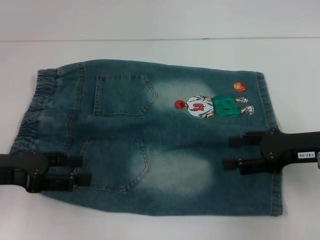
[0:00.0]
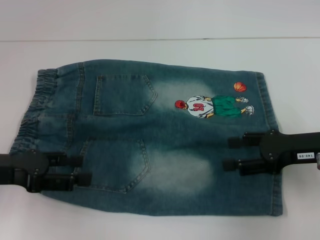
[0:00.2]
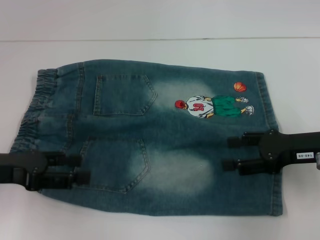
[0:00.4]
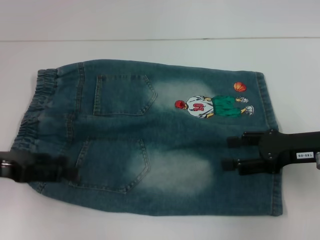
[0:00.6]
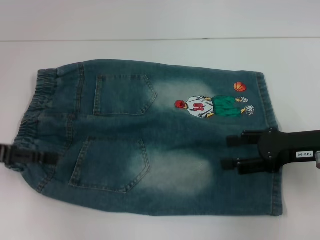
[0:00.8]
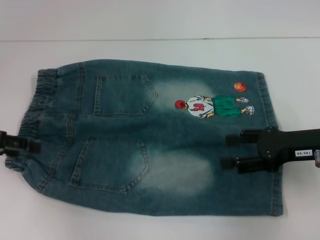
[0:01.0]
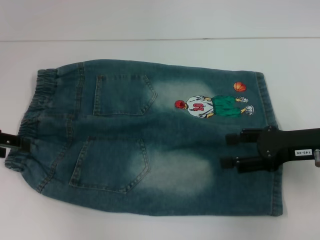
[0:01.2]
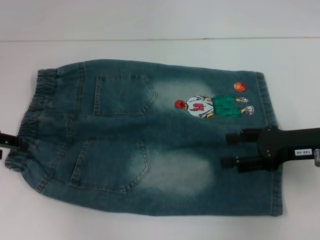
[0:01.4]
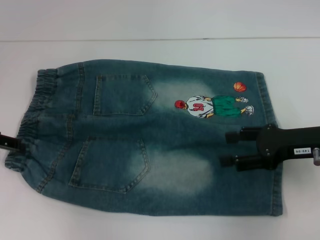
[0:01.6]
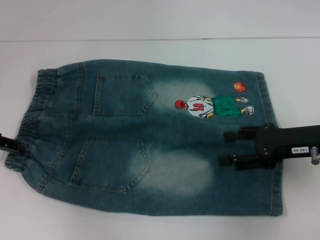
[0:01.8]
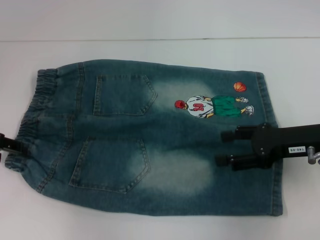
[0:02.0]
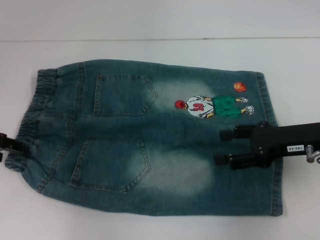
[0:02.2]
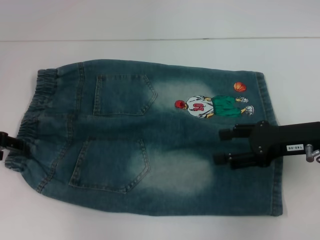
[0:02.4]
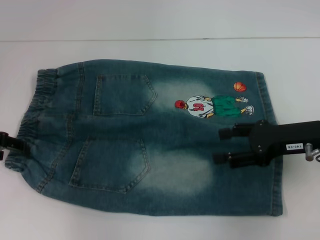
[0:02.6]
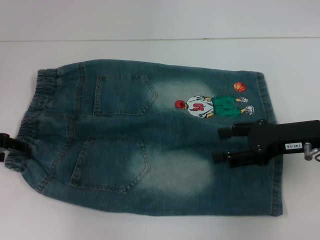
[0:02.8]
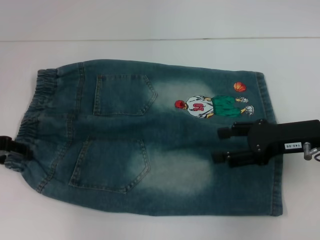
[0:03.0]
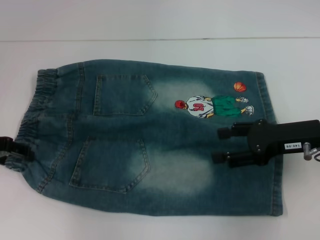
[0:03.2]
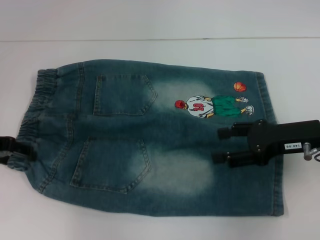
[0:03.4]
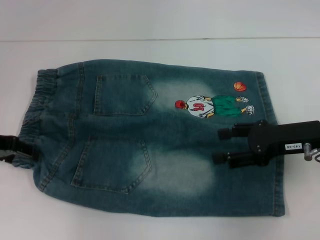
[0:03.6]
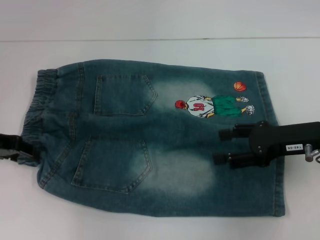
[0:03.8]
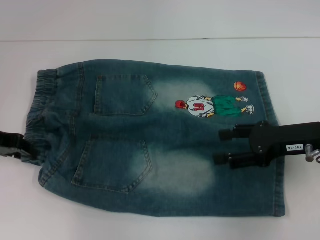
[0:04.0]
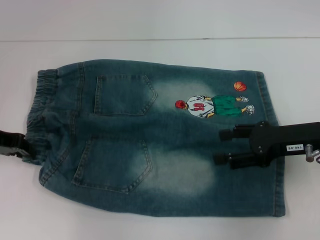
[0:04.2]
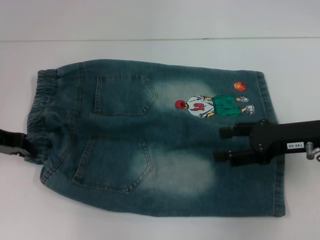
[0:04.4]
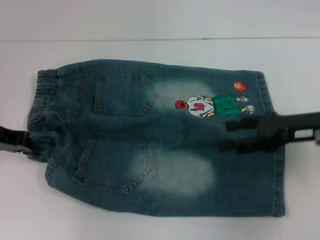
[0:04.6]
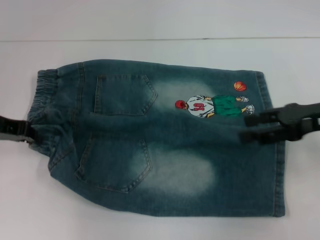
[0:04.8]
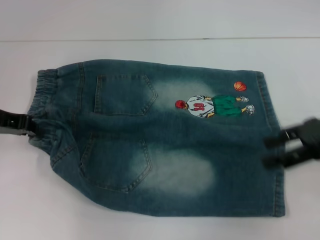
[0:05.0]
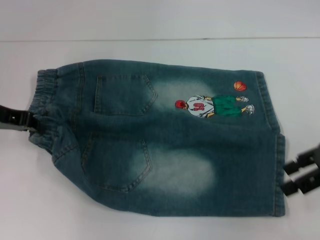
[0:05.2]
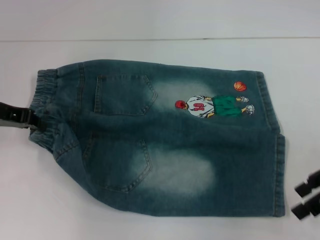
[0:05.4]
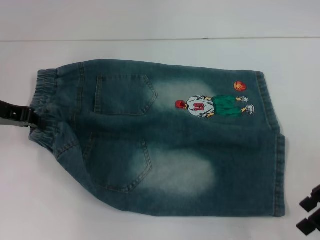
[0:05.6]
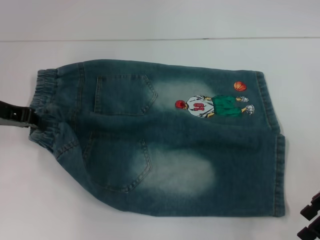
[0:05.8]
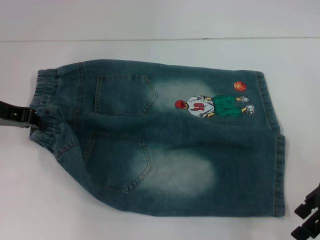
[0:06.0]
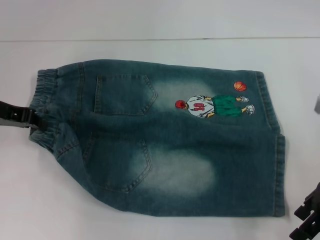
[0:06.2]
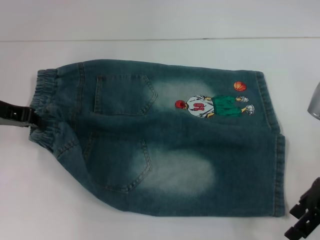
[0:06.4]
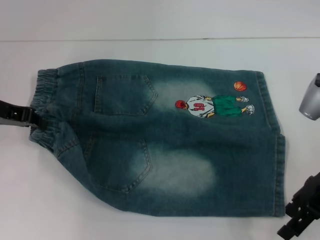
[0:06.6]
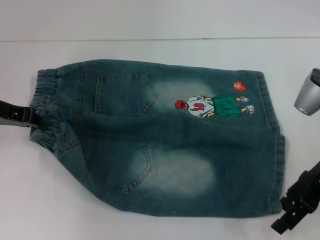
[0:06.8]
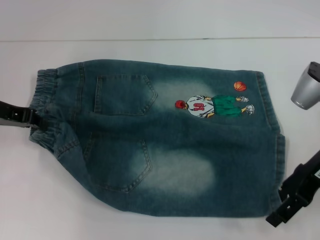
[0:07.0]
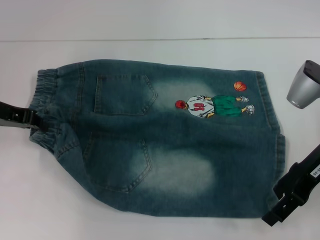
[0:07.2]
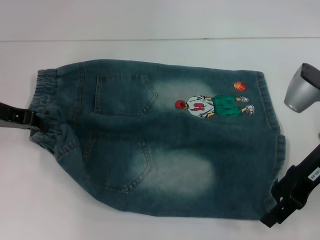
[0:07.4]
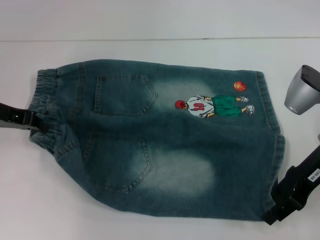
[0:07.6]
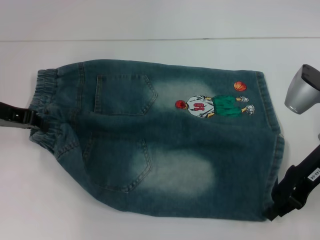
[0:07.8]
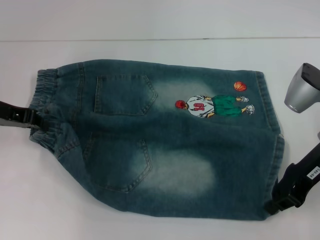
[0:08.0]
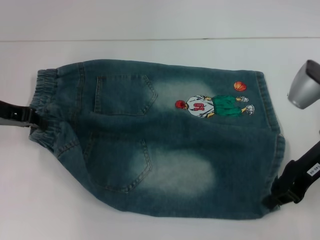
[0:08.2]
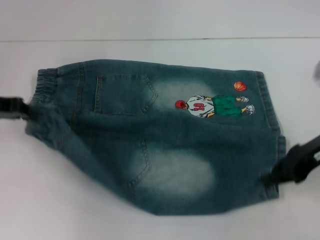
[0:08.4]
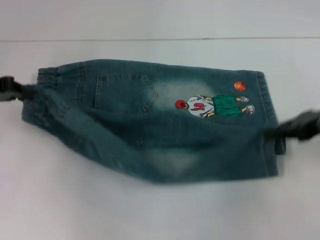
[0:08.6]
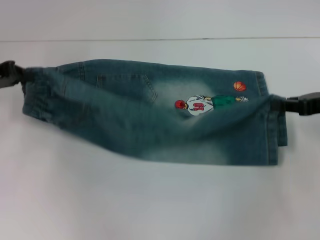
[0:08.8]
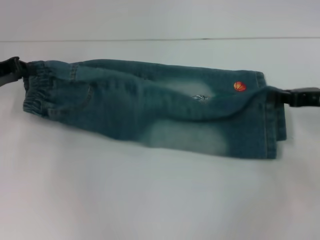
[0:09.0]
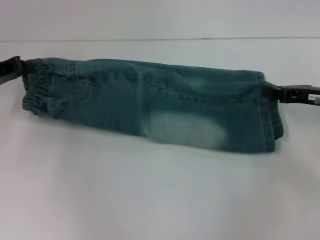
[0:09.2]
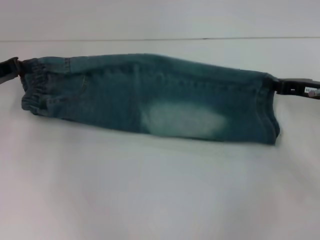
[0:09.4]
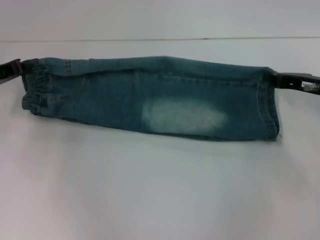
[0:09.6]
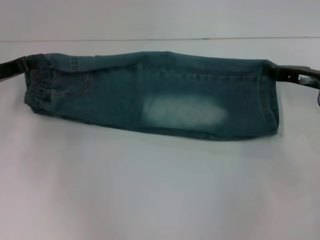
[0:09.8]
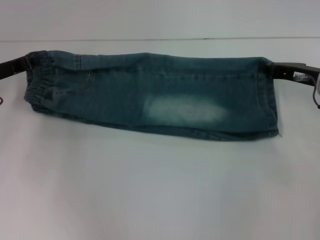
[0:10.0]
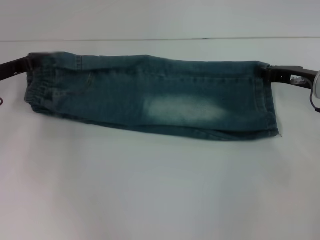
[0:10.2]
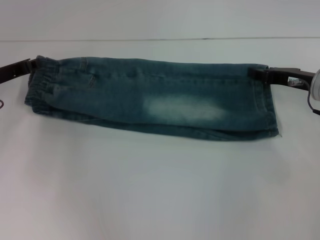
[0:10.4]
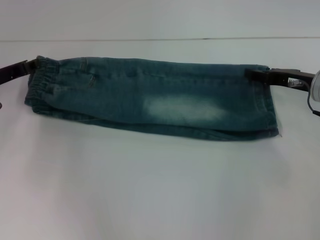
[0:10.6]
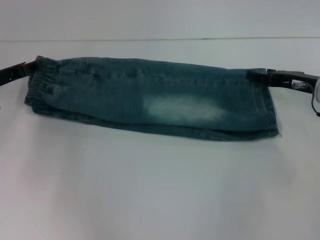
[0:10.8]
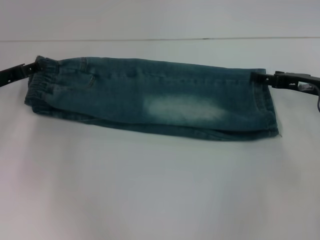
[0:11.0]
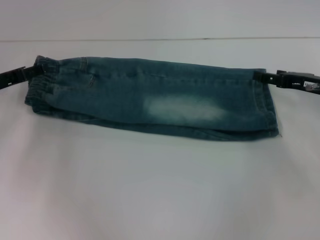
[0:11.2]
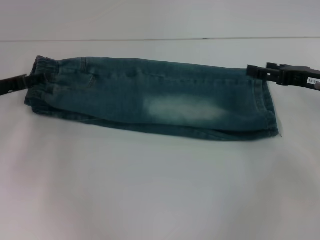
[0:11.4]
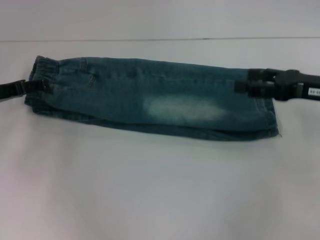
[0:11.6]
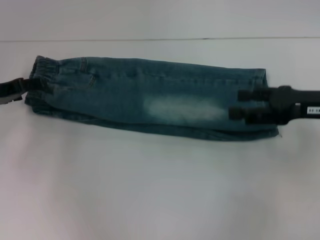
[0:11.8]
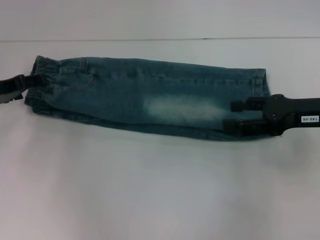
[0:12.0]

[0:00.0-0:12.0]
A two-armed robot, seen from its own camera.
Step, 0.0 to 4.4 s: Hold the lower left waistband with your left hand.
Step, 4.6 to 8.0 s: Grab the lower right pant leg with your right hand.
Step, 8.2 to 10.4 s: Fold upward with your left hand.
0.0 to 1.6 s: The left gripper travels forward by some 5 cm.
1.6 to 3.0 s: There are only small adjustments of the grippers.
3.0 to 4.4 s: The left gripper closes.
6.0 to 7.6 s: The grippers stay close to where they were, moving slightly.
7.6 to 9.0 s: The right gripper shifts approximately 10 cm to the right, and closes its fingers.
9.0 to 10.4 s: The right gripper moves some 5 cm.
10.4 to 12.0 s: The left gripper opens its fingers, while the right gripper goes some 5 cm backward, and opens up.

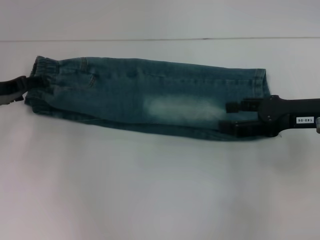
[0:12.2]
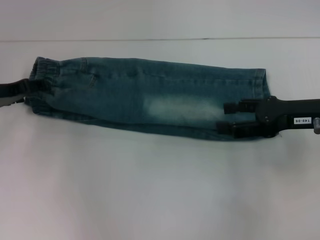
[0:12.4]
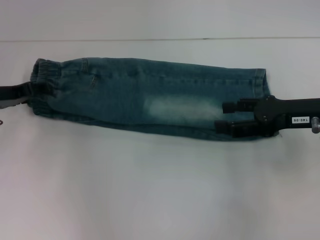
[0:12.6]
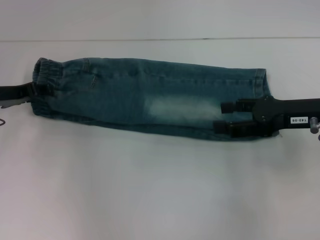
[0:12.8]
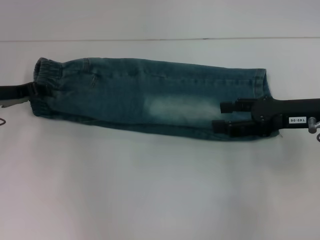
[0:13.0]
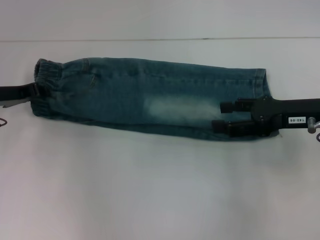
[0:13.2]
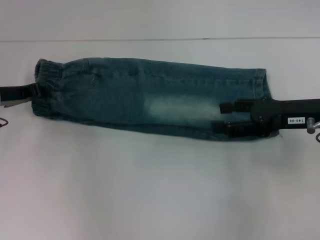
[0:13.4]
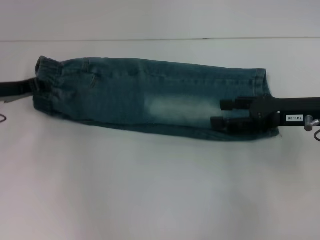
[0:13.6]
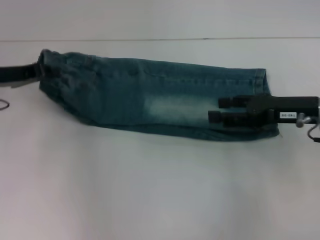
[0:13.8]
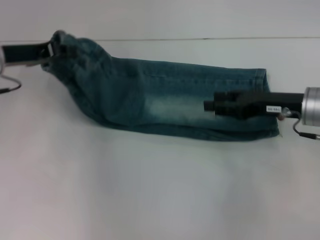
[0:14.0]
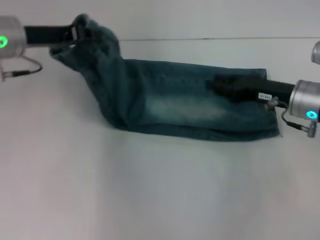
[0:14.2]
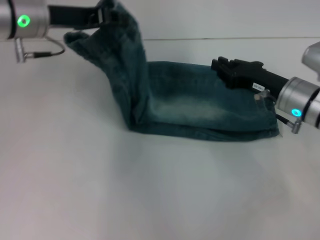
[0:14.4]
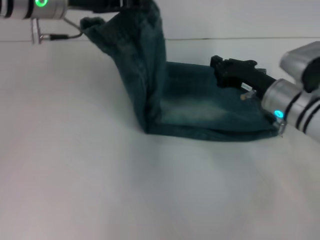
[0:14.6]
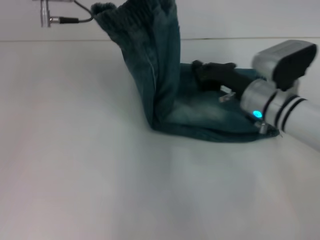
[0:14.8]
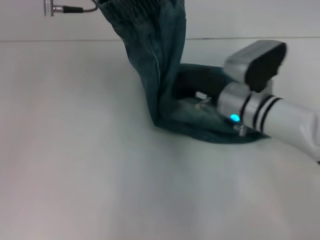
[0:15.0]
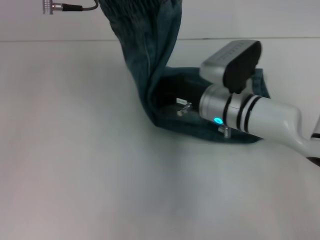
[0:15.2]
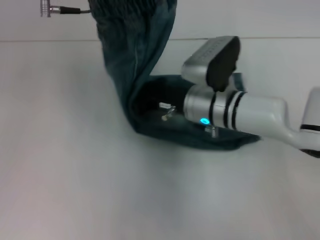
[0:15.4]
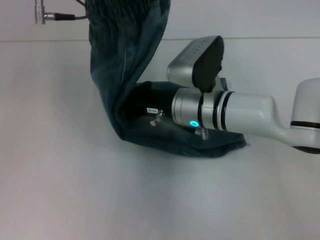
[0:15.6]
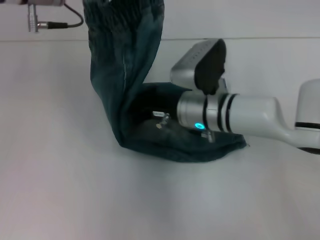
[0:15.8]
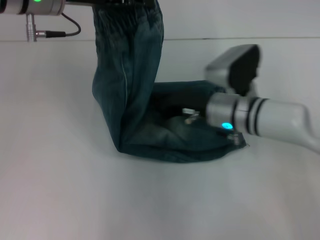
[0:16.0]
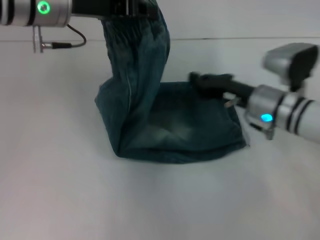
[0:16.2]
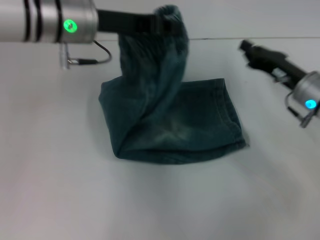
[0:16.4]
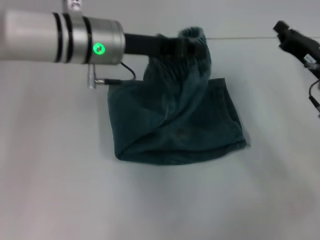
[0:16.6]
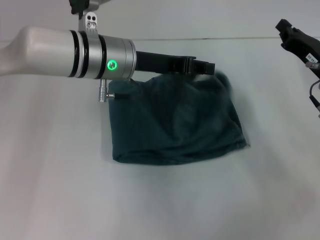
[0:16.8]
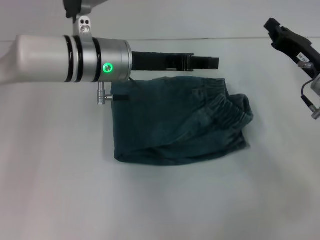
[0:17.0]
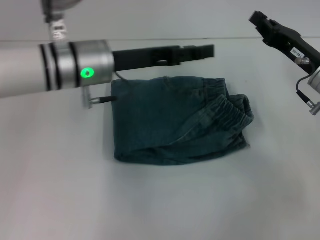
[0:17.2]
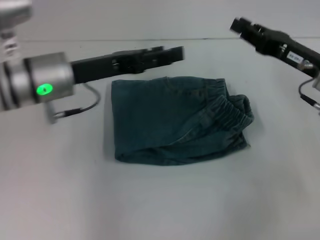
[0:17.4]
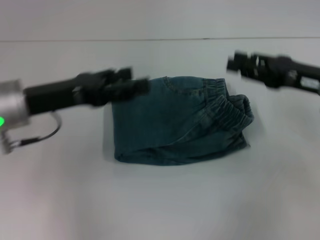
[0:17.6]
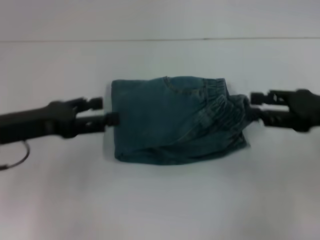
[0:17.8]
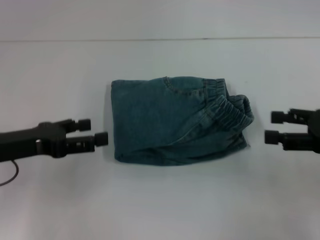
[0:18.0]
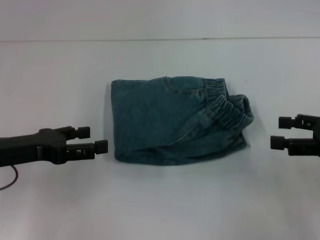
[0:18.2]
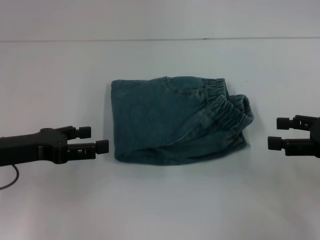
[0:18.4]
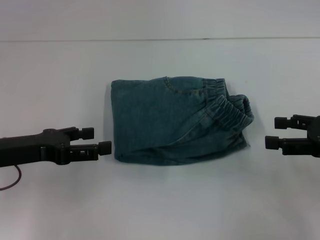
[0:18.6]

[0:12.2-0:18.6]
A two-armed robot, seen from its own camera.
Step, 13.6 to 15.8 s: Press the middle of the pants with your right hand.
Step, 16.0 to 16.8 s: Fold to the right with your left hand.
12.2 to 13.8 s: The left gripper closes.
13.8 to 15.4 s: The right gripper shifts about 20 cm to the left, and closes up. Meanwhile the left gripper travels upward and to the right by some 20 cm.
15.4 to 17.0 s: The left gripper travels downward by approximately 10 cm, while the right gripper travels to the right by about 20 cm.
17.0 to 18.6 s: The left gripper shifts approximately 20 cm to the left and backward, and opens its fingers. Meanwhile the right gripper heads backward and to the right, covering about 10 cm, and opens its fingers.

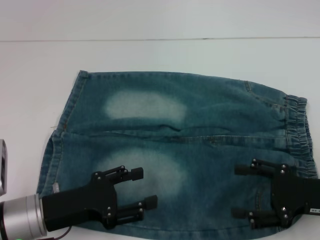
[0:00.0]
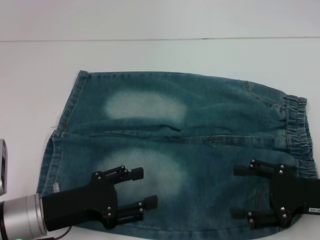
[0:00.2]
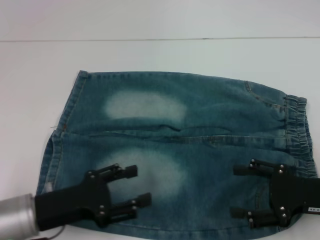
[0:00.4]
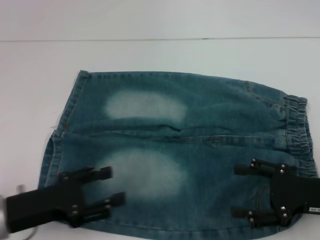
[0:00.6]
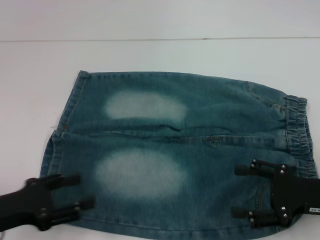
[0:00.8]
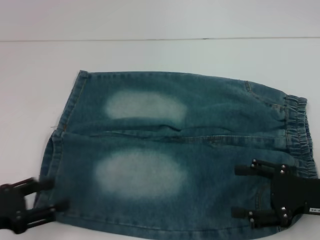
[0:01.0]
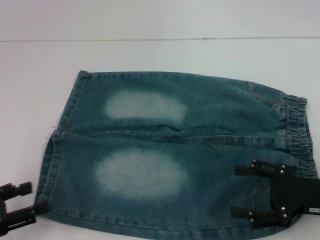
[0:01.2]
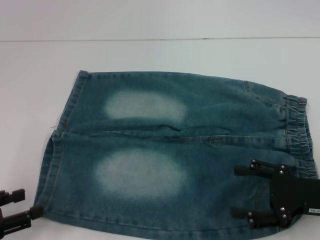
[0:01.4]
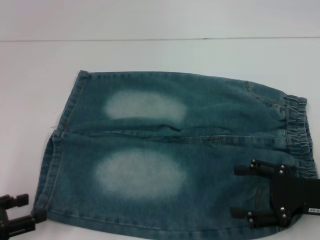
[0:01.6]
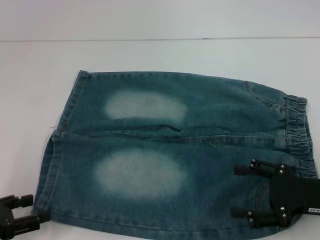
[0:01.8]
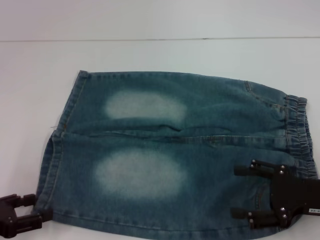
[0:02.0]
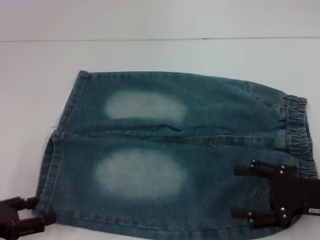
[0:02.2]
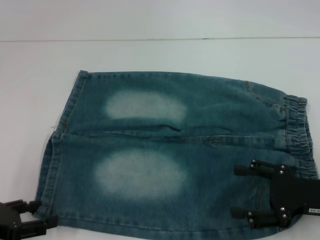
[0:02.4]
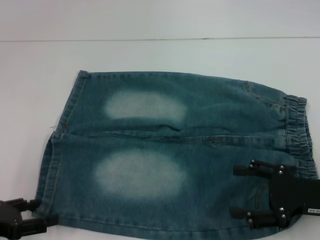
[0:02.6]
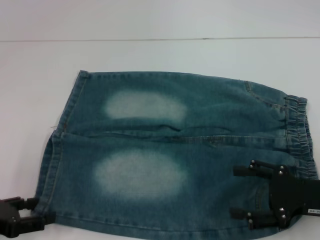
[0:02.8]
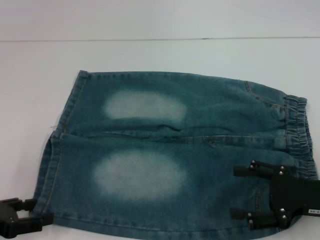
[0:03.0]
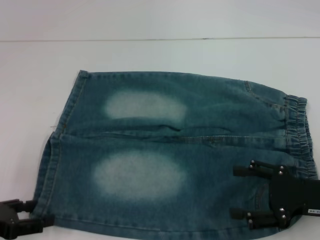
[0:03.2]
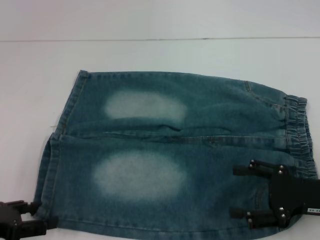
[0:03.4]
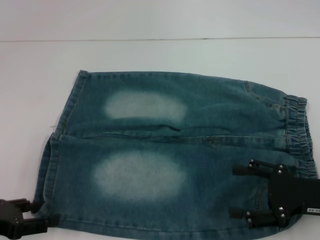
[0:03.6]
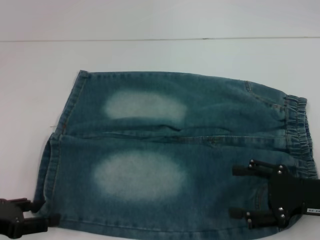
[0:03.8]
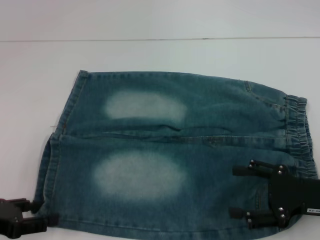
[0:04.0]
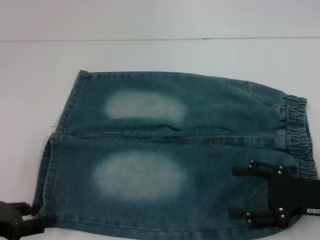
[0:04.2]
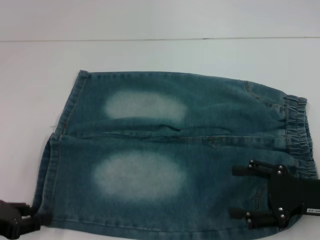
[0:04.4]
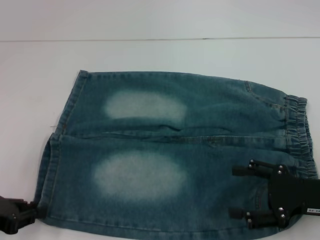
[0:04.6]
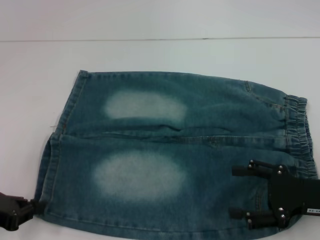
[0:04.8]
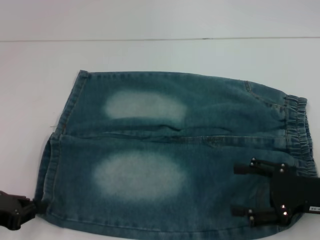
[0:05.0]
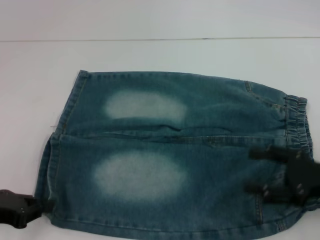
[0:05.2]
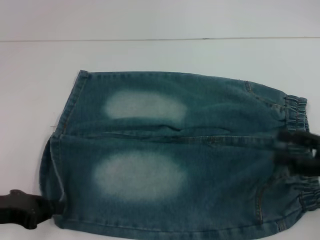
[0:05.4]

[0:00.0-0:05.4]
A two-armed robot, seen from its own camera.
0.0 to 1.4 s: The left gripper is displaced to the left by roughly 15 cm.
1.4 to 2.8 s: The grippers move only a little.
2.8 to 4.0 s: Neither gripper changes place.
4.0 to 5.4 s: The right gripper heads to the right, covering roughly 5 cm, while the left gripper closes.
